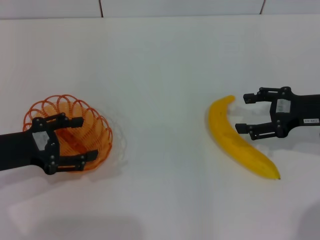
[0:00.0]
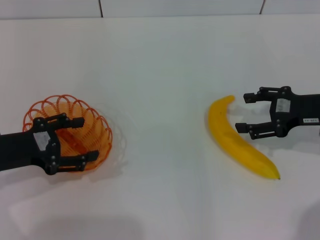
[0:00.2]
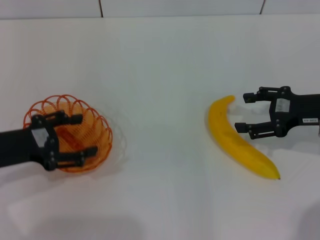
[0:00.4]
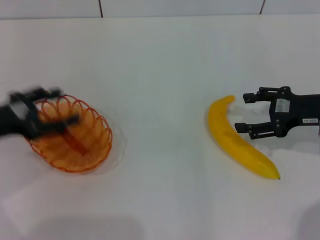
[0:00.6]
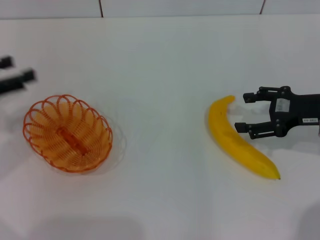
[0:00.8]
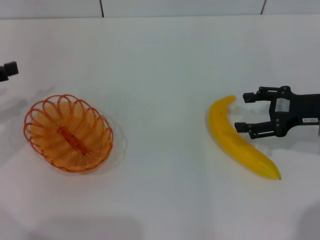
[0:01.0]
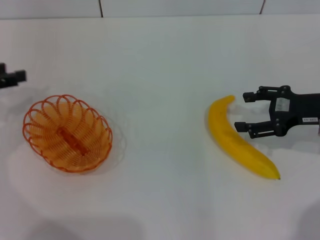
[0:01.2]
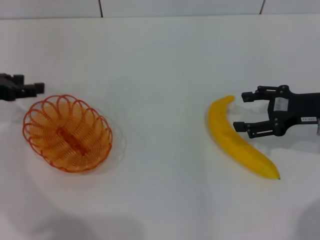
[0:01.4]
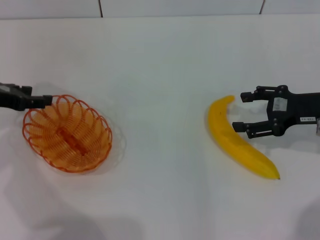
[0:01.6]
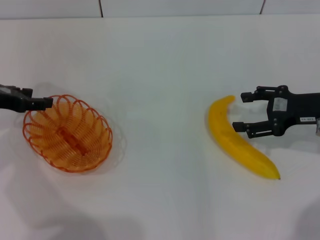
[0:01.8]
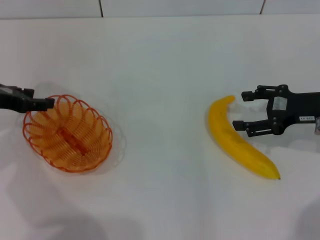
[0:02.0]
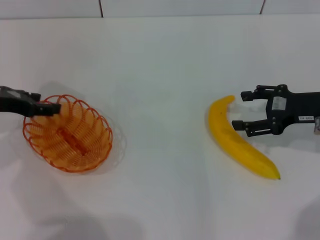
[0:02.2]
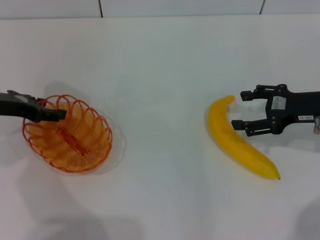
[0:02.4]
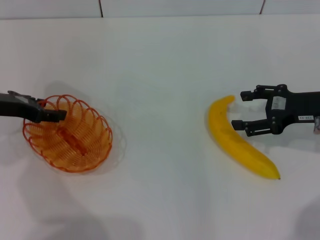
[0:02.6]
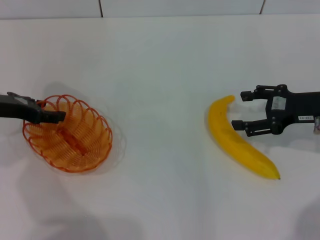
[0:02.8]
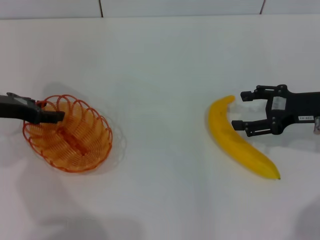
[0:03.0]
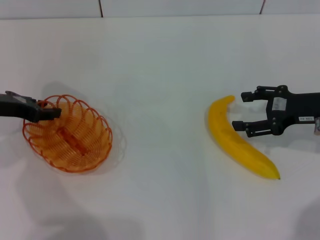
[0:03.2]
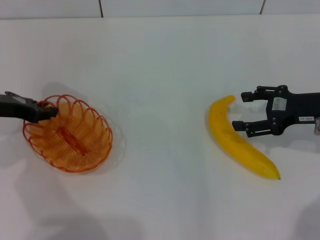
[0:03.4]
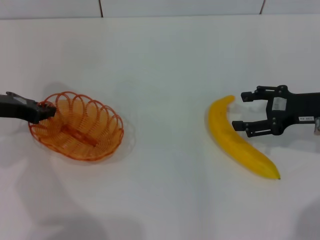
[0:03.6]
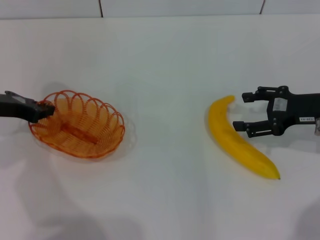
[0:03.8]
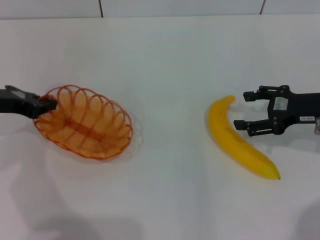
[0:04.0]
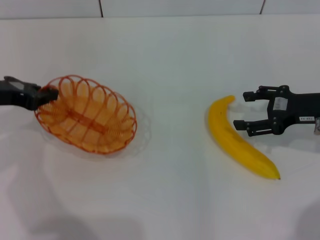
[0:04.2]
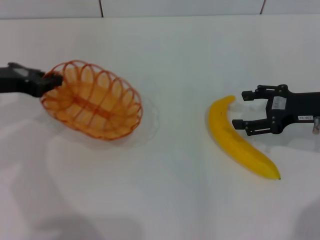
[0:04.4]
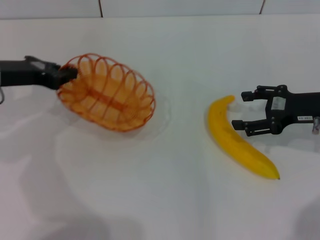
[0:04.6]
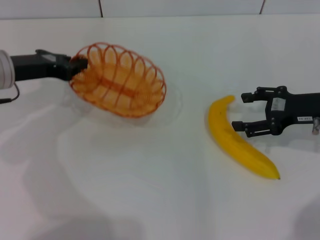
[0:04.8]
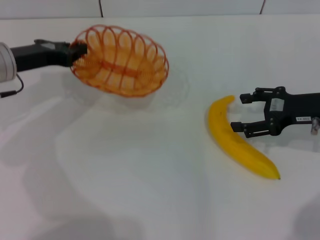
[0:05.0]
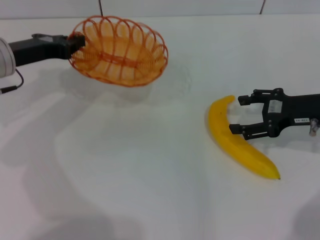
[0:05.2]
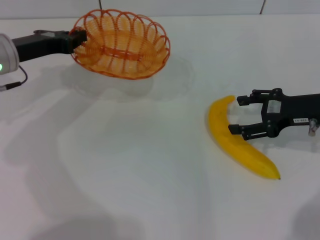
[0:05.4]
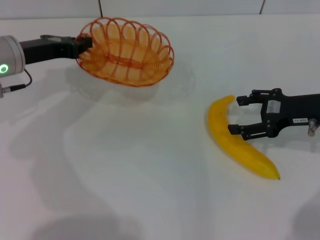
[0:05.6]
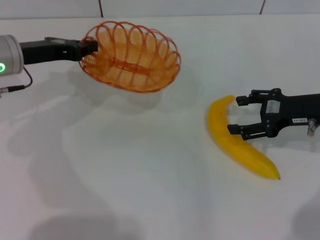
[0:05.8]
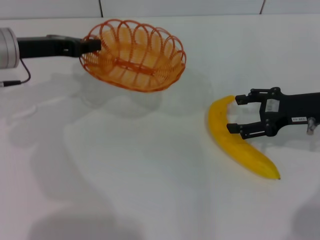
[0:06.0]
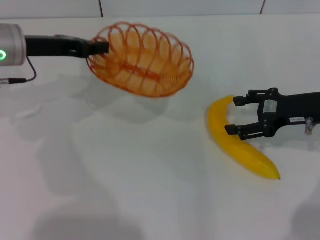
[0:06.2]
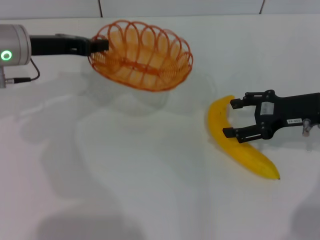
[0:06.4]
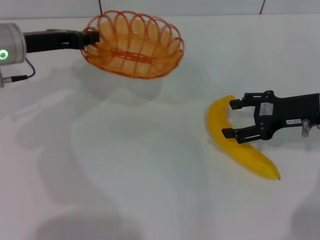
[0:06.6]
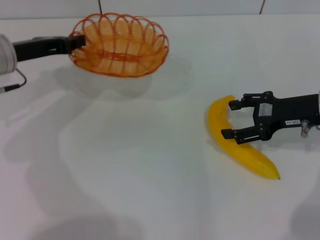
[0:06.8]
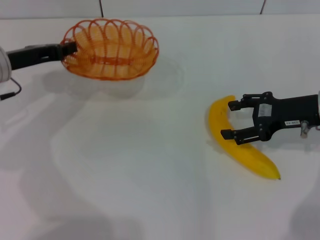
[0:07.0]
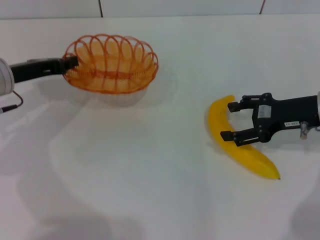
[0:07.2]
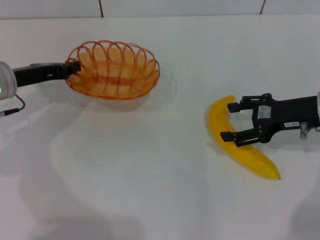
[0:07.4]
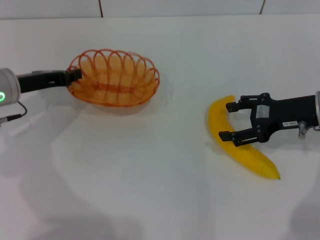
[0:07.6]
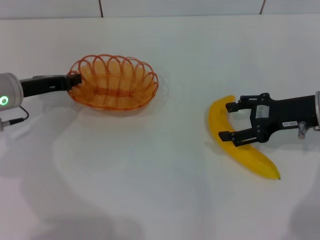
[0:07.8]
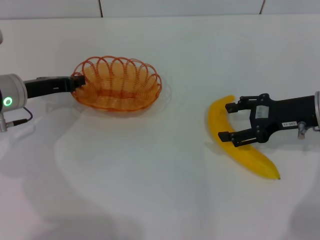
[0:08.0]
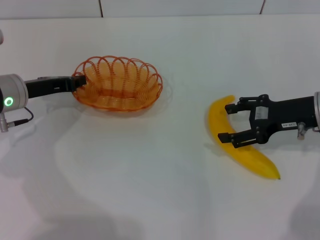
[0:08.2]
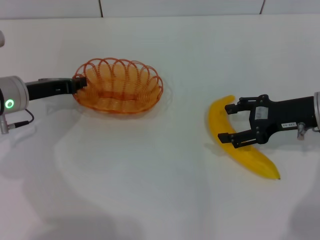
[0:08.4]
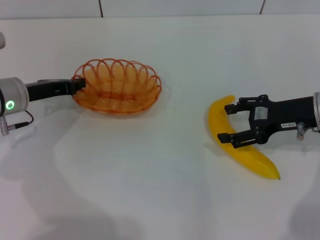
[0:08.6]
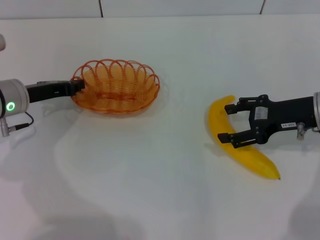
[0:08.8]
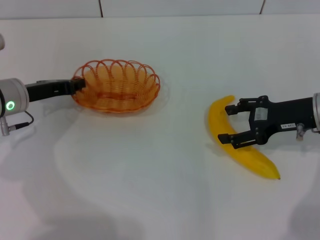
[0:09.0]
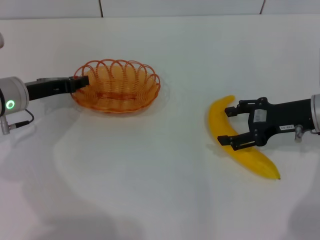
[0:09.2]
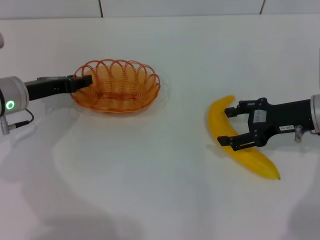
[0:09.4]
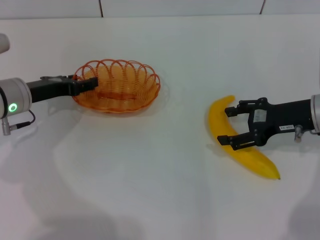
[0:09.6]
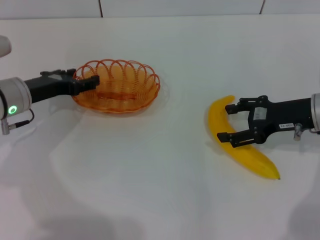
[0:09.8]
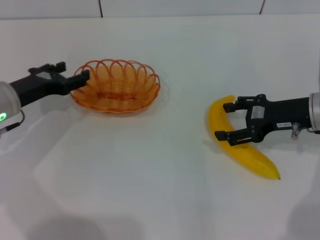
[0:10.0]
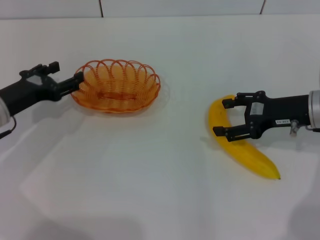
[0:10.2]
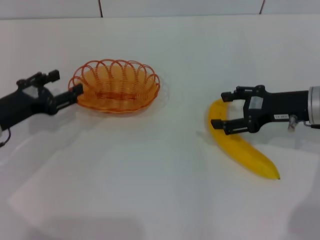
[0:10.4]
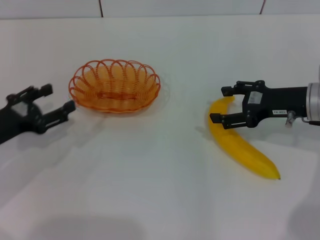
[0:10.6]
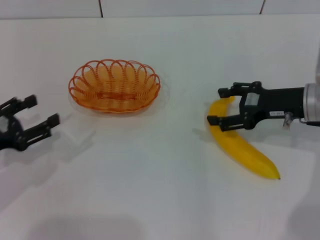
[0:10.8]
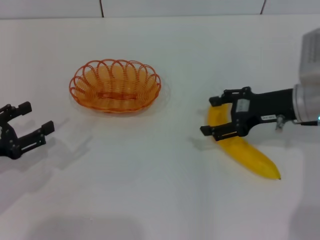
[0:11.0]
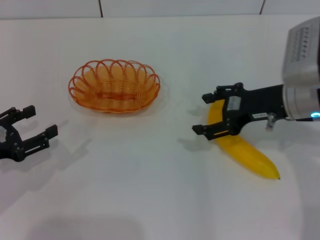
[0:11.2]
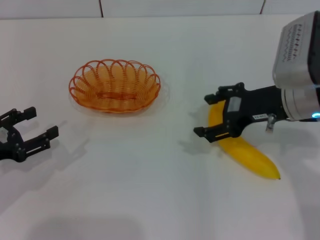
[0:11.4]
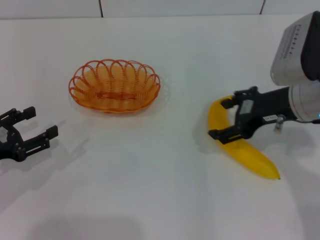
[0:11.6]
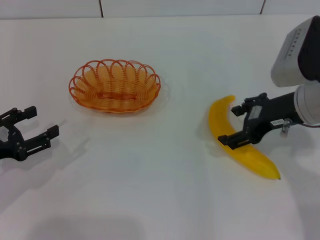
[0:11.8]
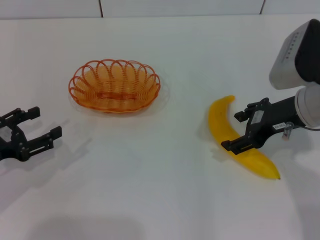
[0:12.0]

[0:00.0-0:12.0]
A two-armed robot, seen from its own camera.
Step, 0:00.0 to 0:04.4: Pick up the basket with the left gripper.
Step, 0:04.6 to 0:09.6: Place the basket in the center of view with the left gripper.
0:00.0 to 0:01.6: The left gripper shifts about 10 cm forward.
0:01.6 to 0:03.0: The grippers stay close to where they were, moving slightly.
0:03.0 to 0:04.4: The left gripper closes up.
0:04.4 to 0:06.0: The left gripper moves approximately 5 cm.
0:06.0 to 0:07.6: The left gripper is displaced downward by approximately 5 cm.
0:07.6 to 0:09.0: There are only small adjustments of the grippers.
0:09.0 to 0:10.4: The left gripper moves backward, about 5 cm, and opens up.
0:10.4 to 0:12.0: The left gripper is displaced backward by roughly 5 cm; the right gripper heads upward, covering about 5 cm.

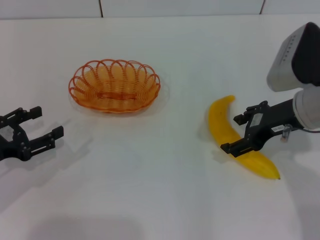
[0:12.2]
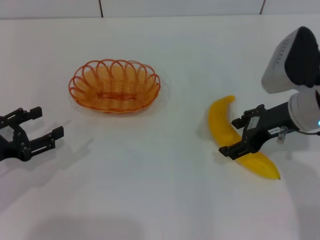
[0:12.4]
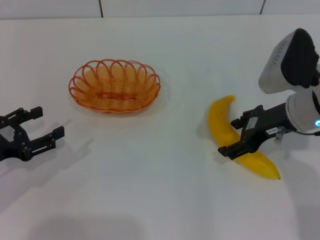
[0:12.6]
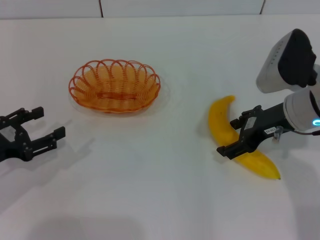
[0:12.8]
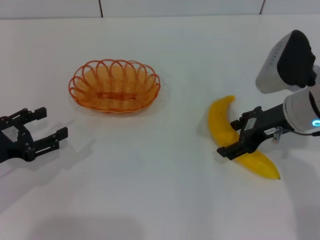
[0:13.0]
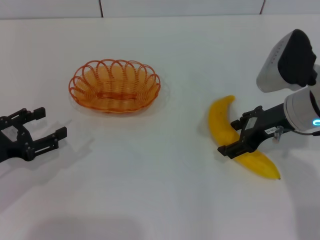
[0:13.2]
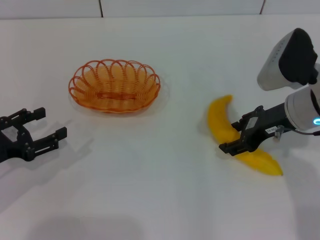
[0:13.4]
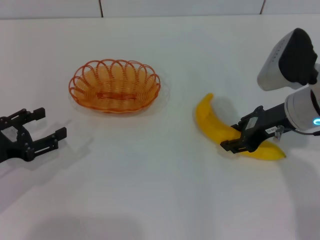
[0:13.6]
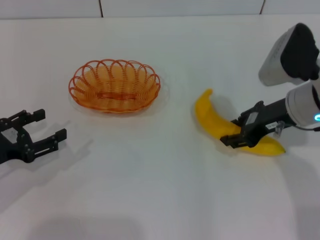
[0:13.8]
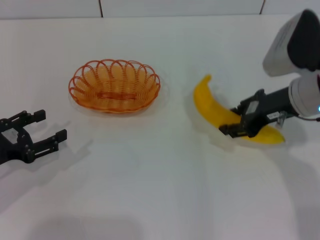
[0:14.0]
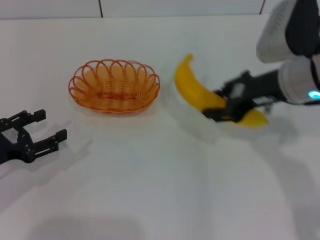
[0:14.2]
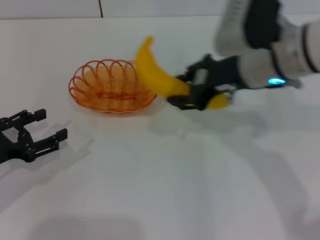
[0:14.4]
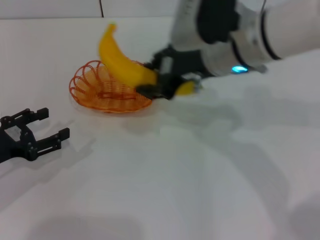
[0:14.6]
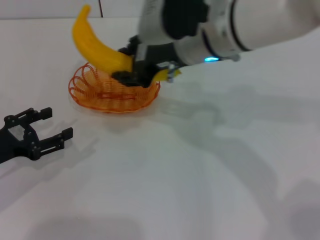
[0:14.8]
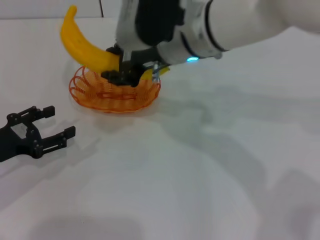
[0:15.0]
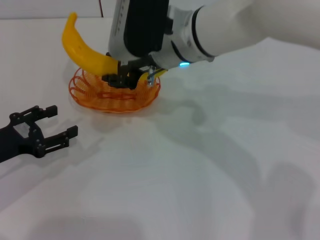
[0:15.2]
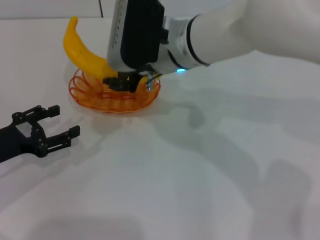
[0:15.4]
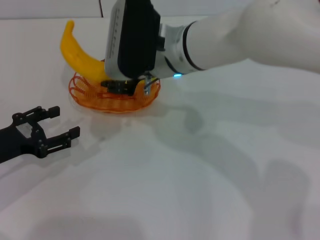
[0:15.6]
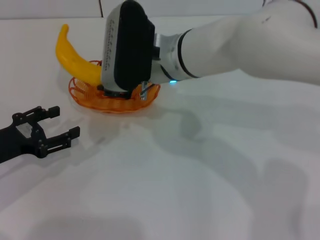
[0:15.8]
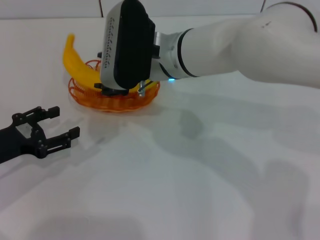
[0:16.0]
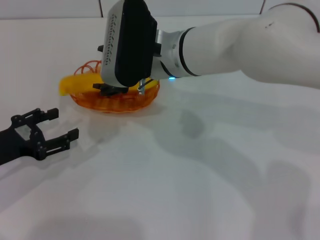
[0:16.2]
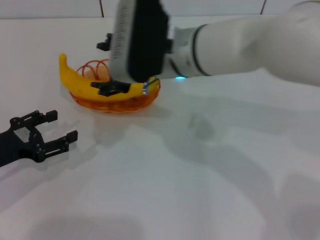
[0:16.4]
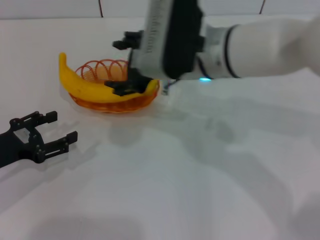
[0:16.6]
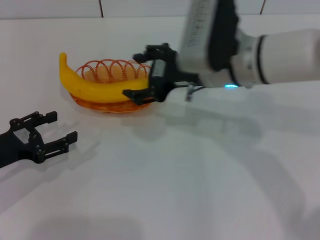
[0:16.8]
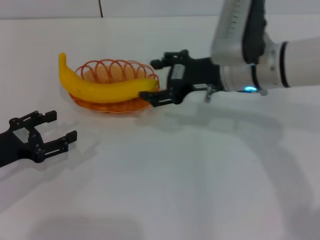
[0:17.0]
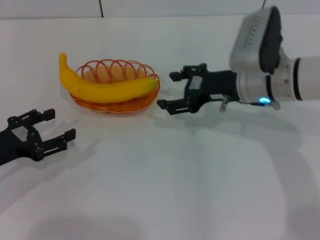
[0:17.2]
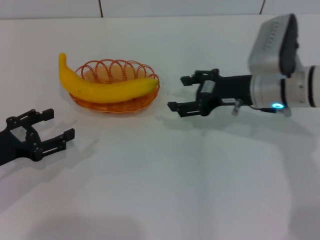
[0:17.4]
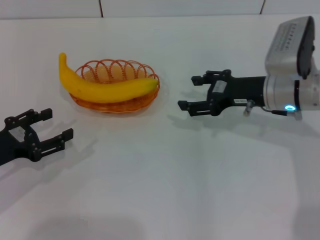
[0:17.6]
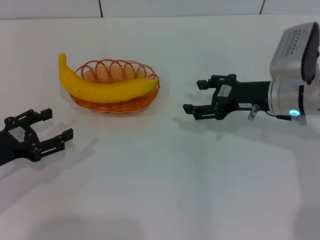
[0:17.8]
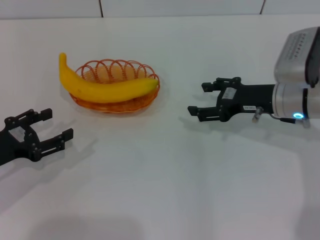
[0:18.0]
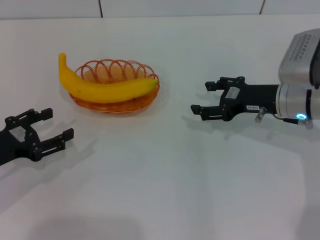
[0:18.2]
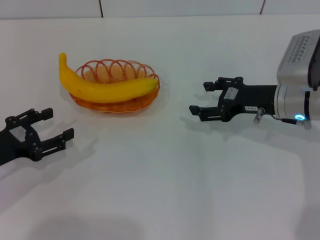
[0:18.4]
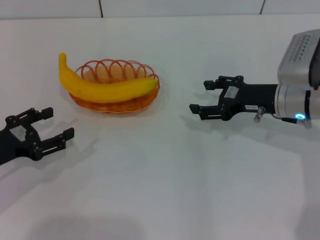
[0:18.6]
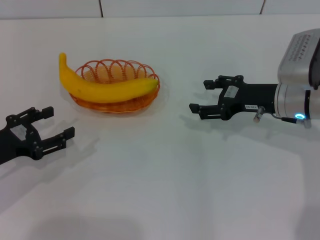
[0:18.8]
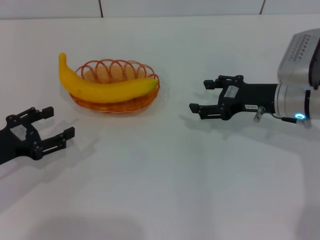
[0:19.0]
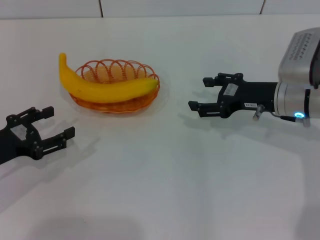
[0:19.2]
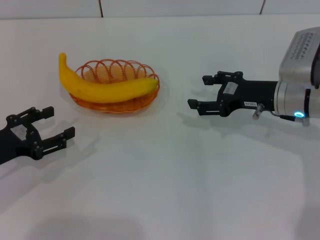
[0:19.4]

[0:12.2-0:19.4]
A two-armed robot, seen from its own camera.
Step, 0:12.2 to 0:14.2: Pick up the banana with the right gripper.
Step, 0:14.4 to 0:16.4: Place the banana into the basket with the right gripper.
0:12.2 to 0:13.6: There are only small adjustments of the grippers.
0:13.6 to 0:15.0: The right gripper is displaced to the left and upward by some 20 cm, and closes.
0:15.0 to 0:16.6: The right gripper opens its fingers.
0:16.6 to 0:18.0: The right gripper is displaced to the right and downward by about 20 cm.
0:18.0 to 0:19.4: The two grippers keep their place.

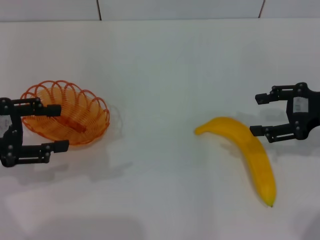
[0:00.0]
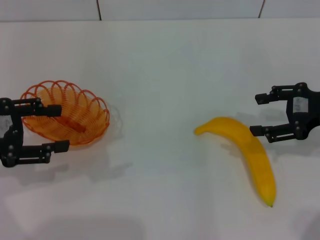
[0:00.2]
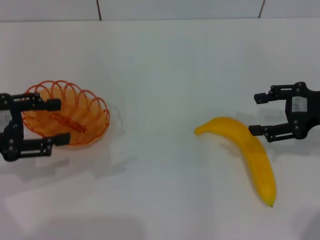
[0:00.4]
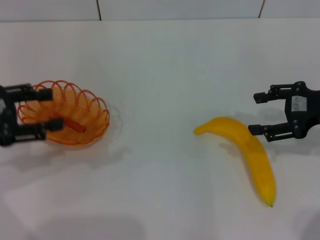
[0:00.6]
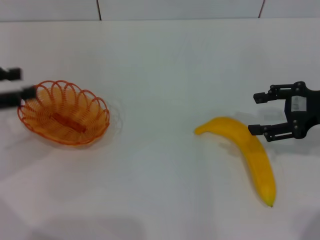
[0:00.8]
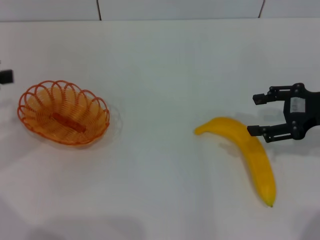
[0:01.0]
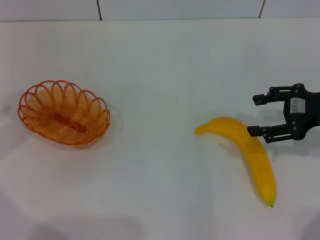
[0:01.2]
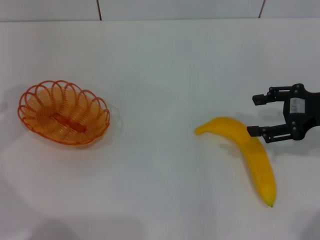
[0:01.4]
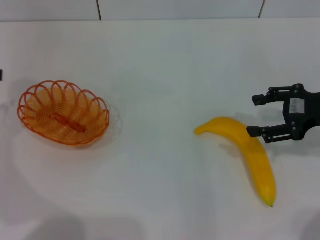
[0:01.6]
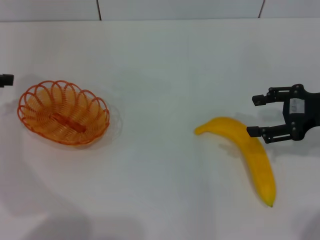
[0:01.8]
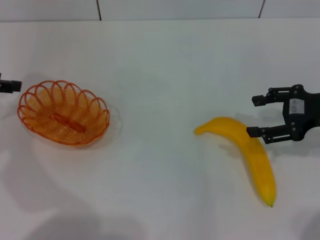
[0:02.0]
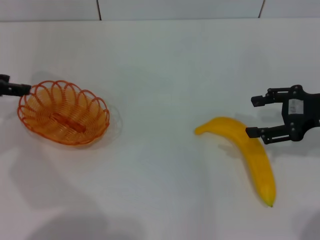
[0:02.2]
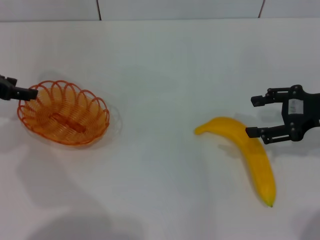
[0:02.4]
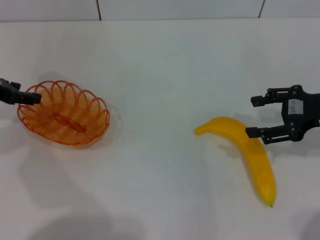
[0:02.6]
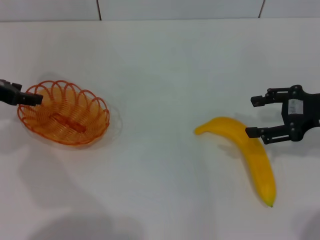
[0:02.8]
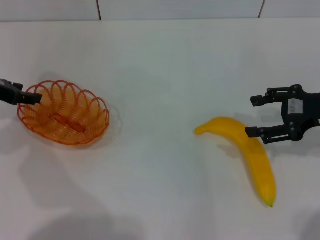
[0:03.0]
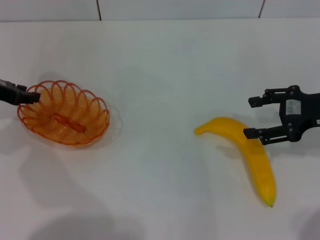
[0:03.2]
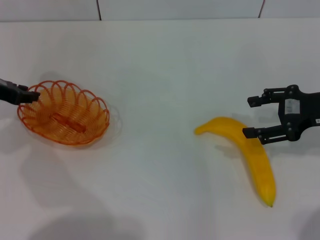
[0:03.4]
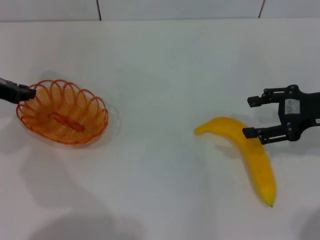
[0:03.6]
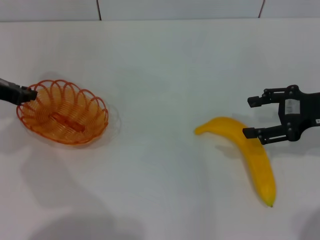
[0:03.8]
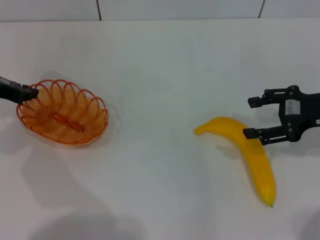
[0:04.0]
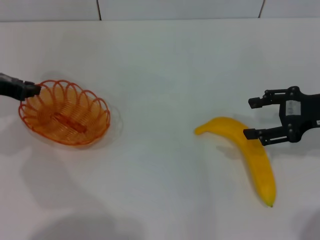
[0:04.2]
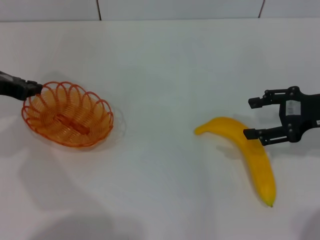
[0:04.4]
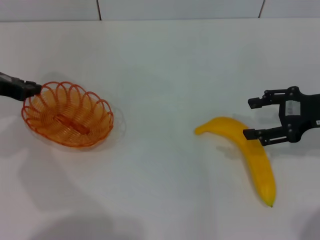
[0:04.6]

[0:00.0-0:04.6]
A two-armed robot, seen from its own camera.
0:00.0 to 0:01.6: The left gripper heads forward and to the left, covering approximately 10 cm.
0:01.6 to 0:03.0: The left gripper is displaced to the right and downward by about 10 cm.
0:03.0 to 0:04.6: The left gripper closes.
